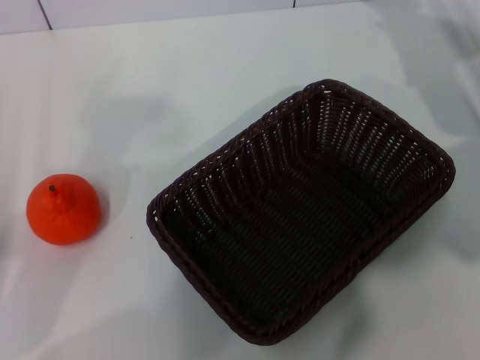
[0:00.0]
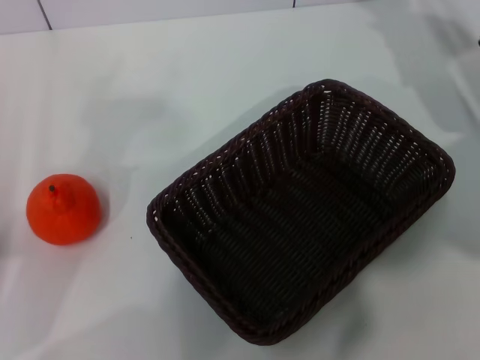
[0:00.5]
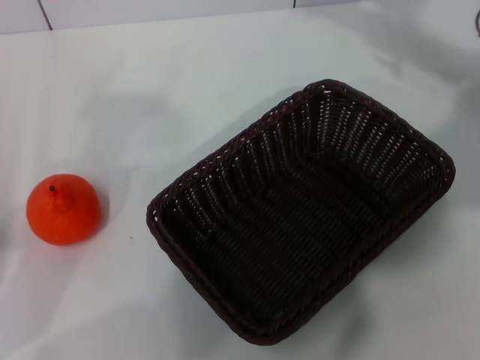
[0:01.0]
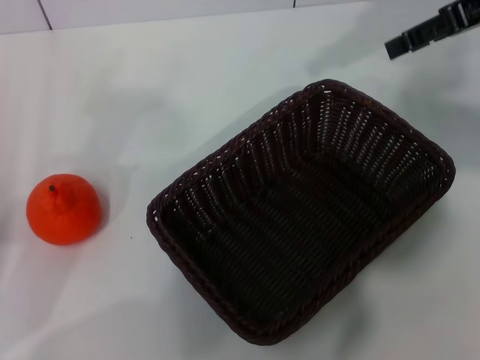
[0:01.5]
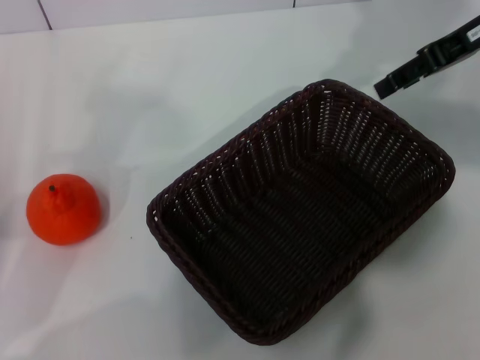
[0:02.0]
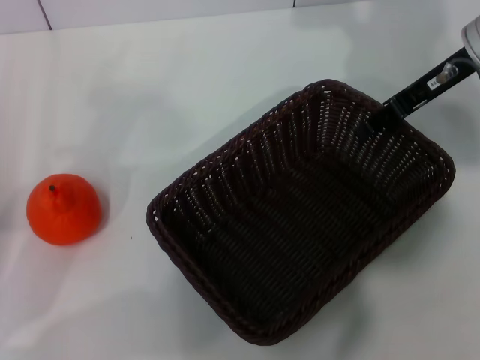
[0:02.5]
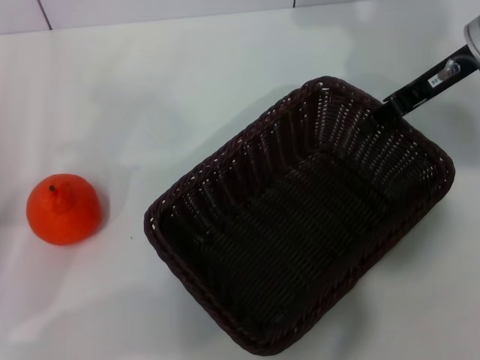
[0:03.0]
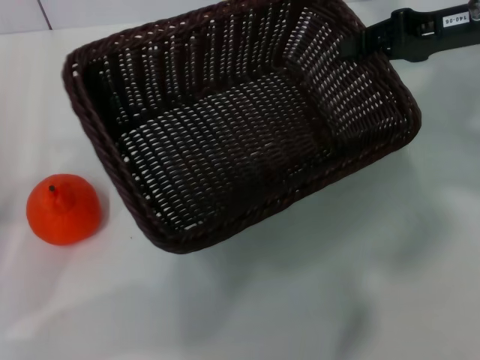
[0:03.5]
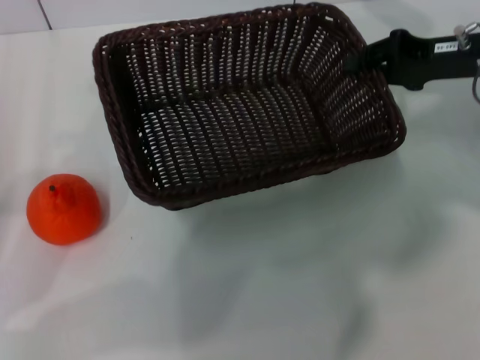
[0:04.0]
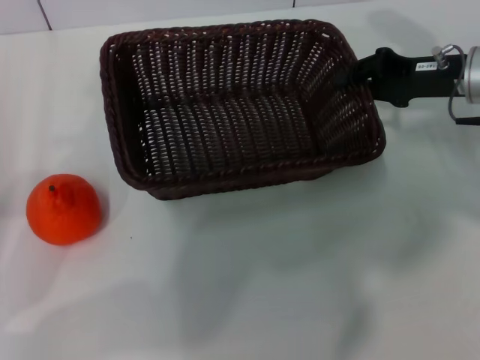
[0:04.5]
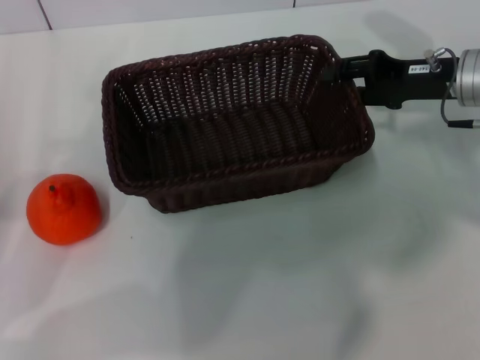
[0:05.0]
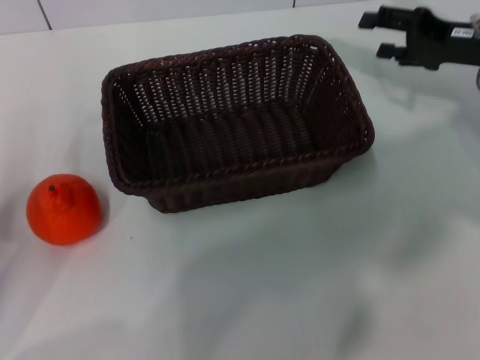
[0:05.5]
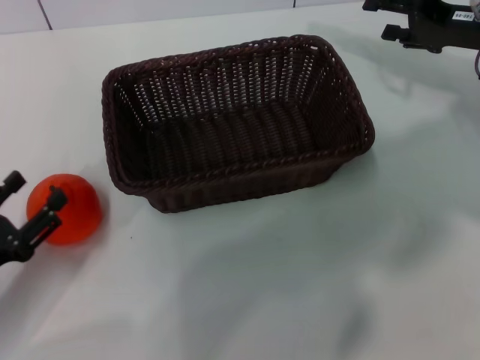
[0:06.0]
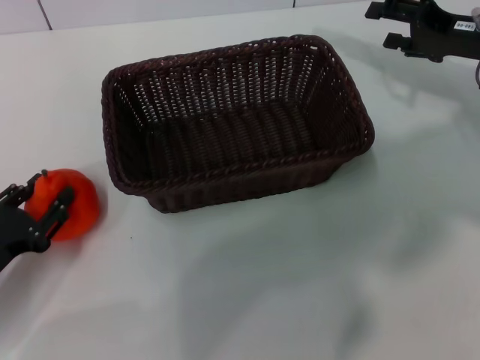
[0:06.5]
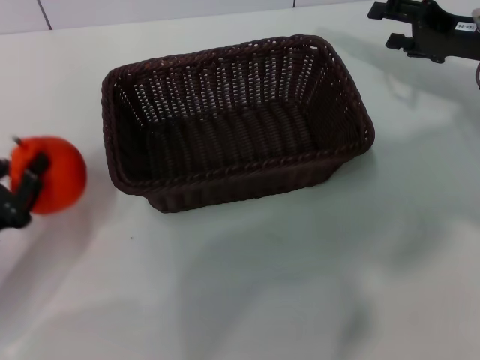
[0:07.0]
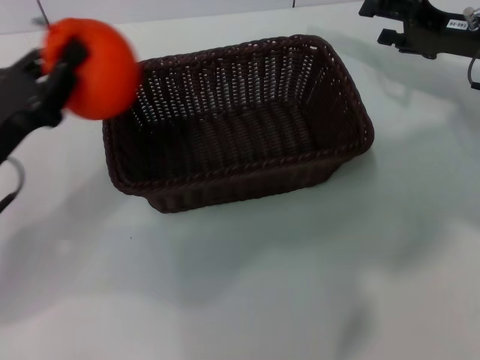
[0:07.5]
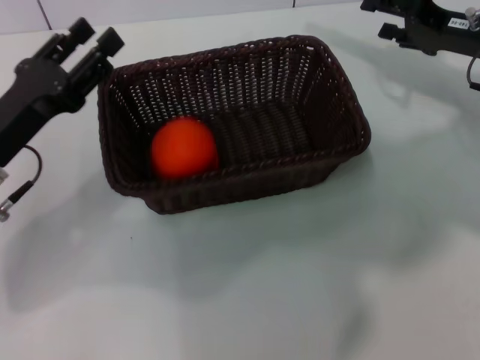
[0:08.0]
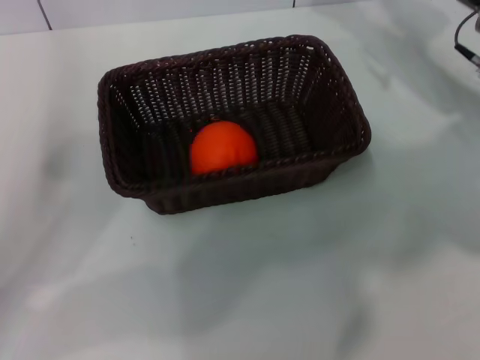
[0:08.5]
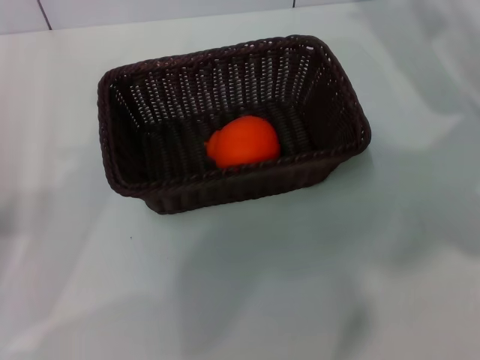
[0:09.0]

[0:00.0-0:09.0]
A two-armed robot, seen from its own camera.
Task of the whole recording: the right gripper pick up the black basket and place it horizontally in the middle of the table, the left gripper pick up the orange and place it into the black basket.
Step, 0:00.0 to 0:03.0: Pick up the dark basket with the right gripper.
Step, 0:03.5 to 0:05.5: Place the dark basket in the center of view with the right gripper.
Step, 0:06.0 to 0:07.0: Pick up the orange with the left gripper.
0:00.0 to 0:02.0: The right gripper heads upward, covering about 10 cm.
0:02.0 to 0:04.5: The right gripper heads downward, covering about 10 cm, and closes.
0:04.5 to 0:07.0: The left gripper goes some 5 cm downward, and closes up; the right gripper opens up.
0:07.0 to 0:09.0: The left gripper heads upward, covering about 5 cm, goes forward and returns, roughly 10 cm each way, and opens.
